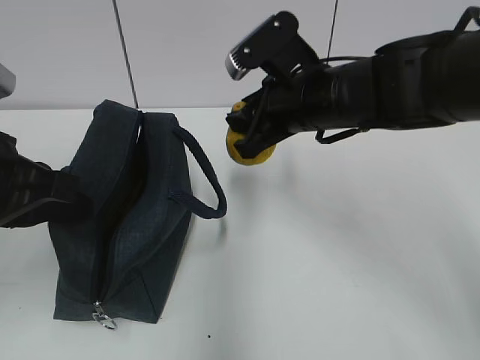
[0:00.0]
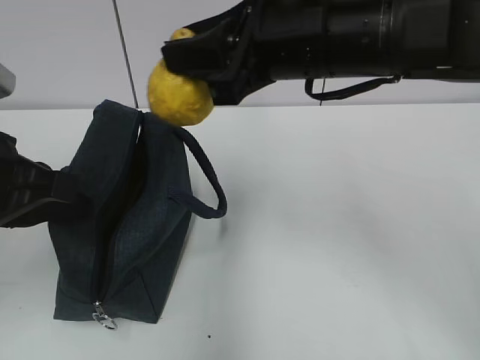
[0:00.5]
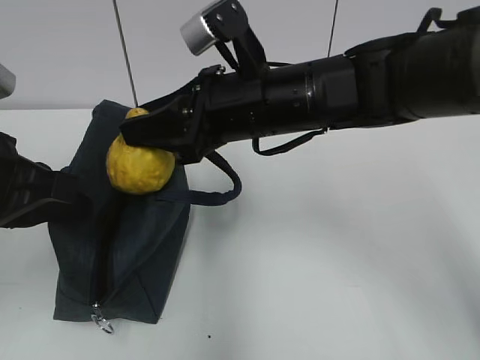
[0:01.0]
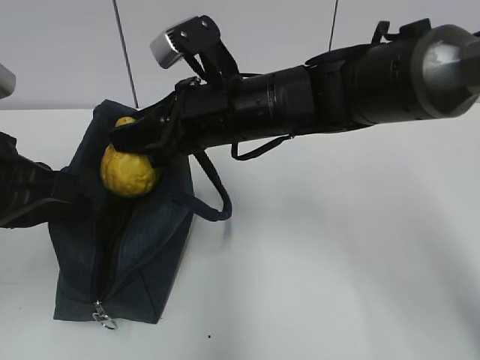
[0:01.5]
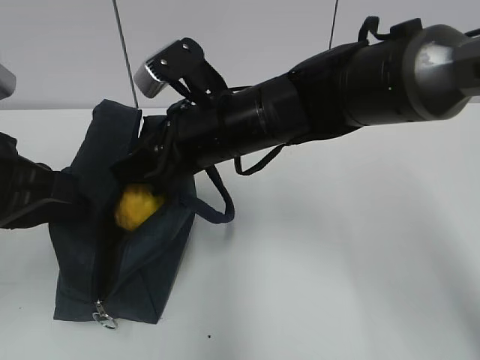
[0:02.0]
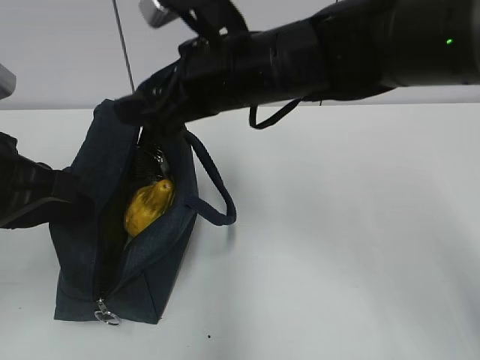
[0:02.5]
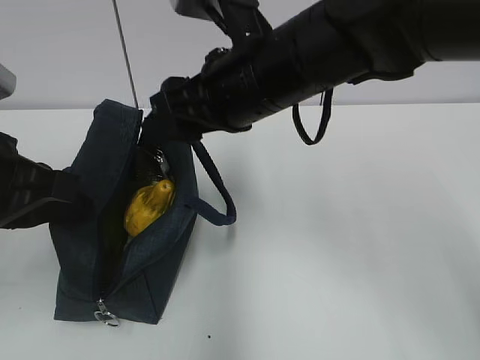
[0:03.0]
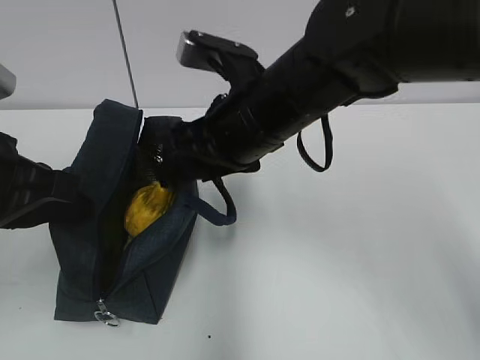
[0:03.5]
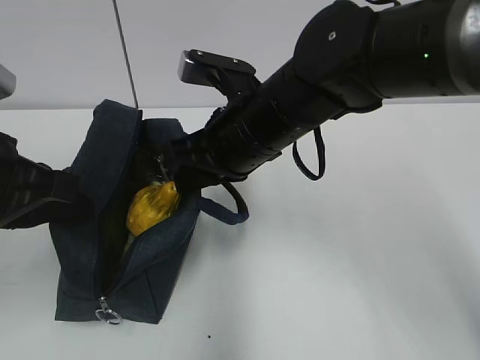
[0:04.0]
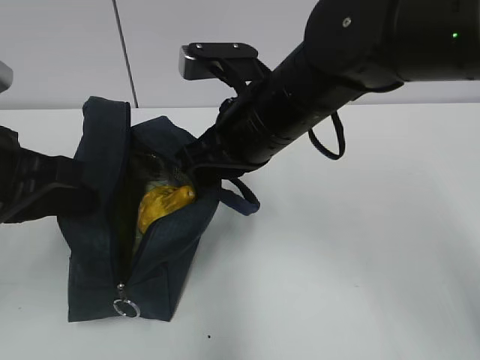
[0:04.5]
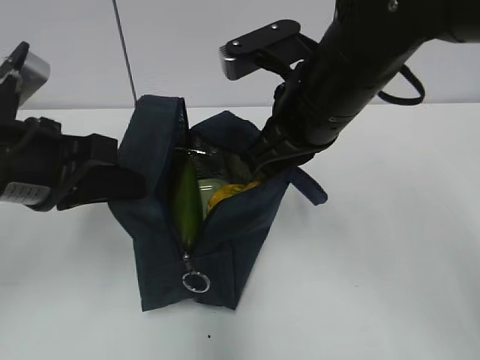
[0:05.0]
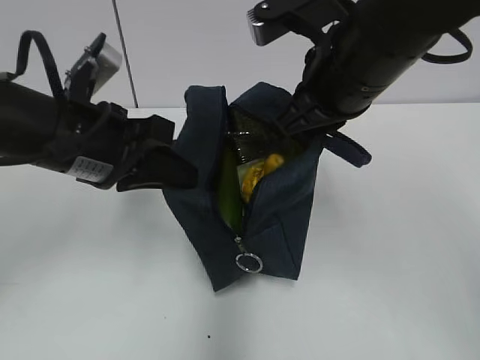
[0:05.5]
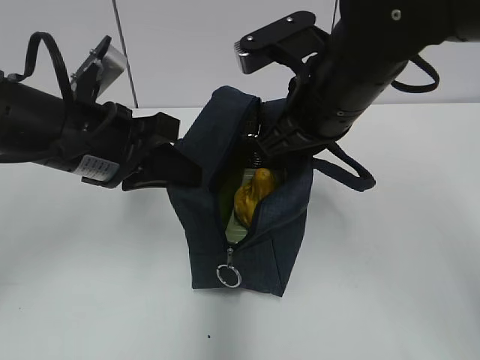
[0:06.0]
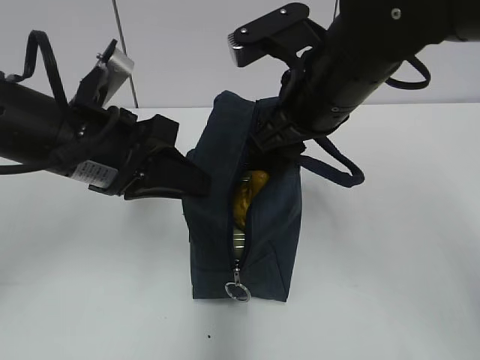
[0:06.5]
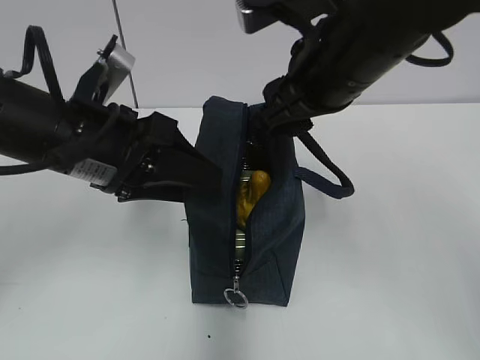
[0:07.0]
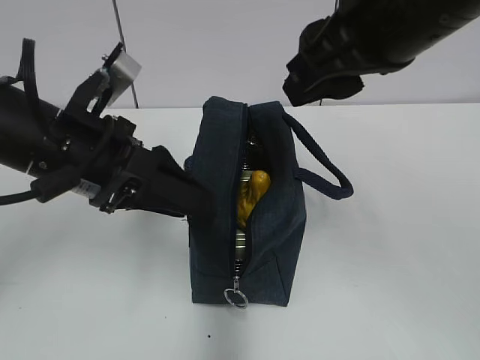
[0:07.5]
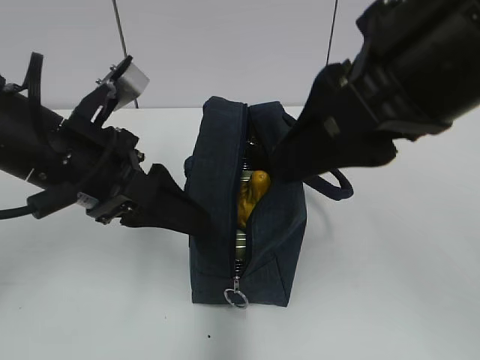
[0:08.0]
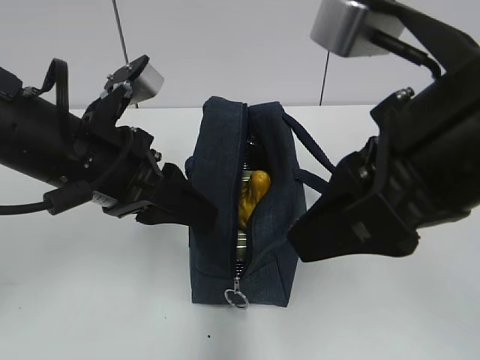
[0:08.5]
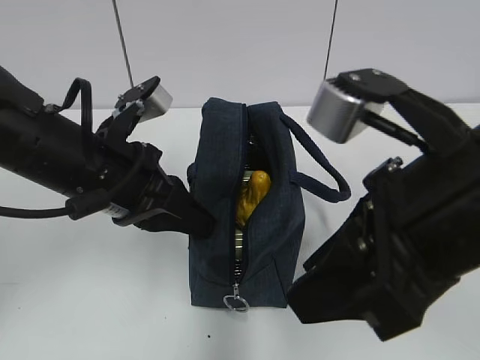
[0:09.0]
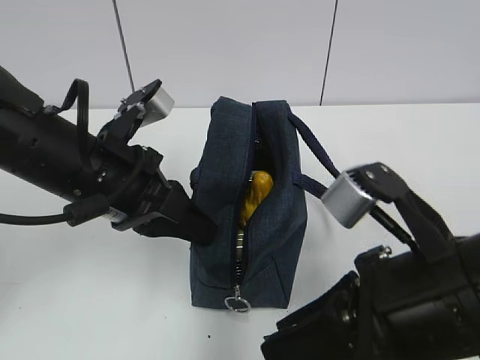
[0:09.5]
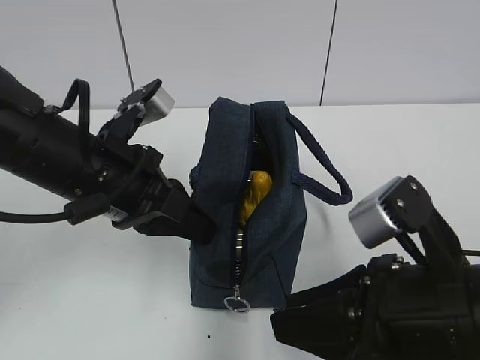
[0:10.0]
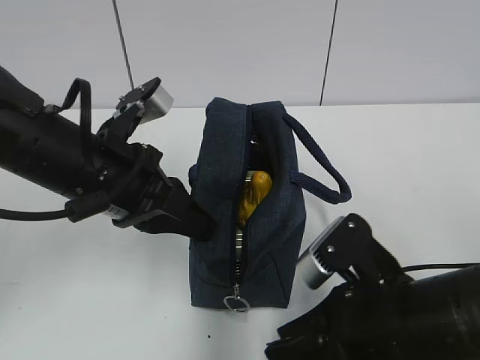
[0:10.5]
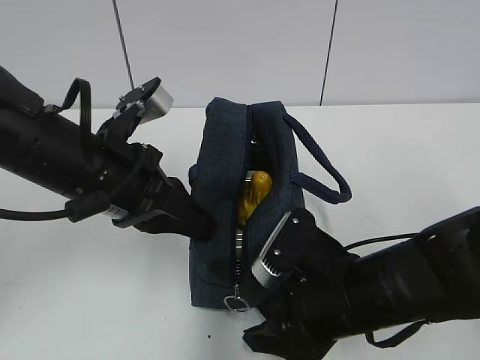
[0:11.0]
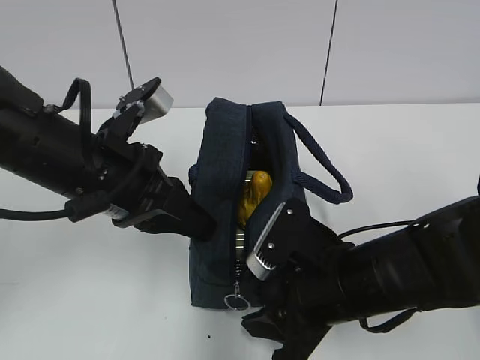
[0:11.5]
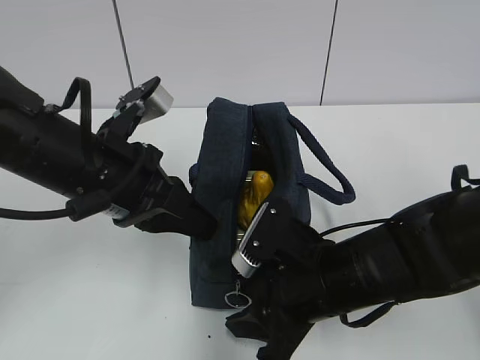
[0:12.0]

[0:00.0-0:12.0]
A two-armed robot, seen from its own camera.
Step, 0:02.5 to 0:03.5: Grab the lunch bag with your right hand.
Step, 0:04.0 to 0:06.5: Move the lunch bag to the right.
0:00.0 to 0:02.0: The right gripper is displaced to the left by about 10 cm, and reaches some 10 cm upward, then returns.
0:02.0 to 0:04.0: The right gripper closes its fingers.
0:04.0 to 0:06.0: The right gripper travels to the right by about 5 cm, while the left gripper shifts roughly 10 cm to the right and forward.
0:06.0 to 0:08.0: The right gripper moves backward and upward, approximately 15 cm, and opens. The left gripper opens up.
0:08.0 to 0:10.0: The left gripper closes its fingers; the right gripper moves downward, some 15 cm.
0:10.0 to 0:12.0: The right gripper moves forward and downward, roughly 10 cm.

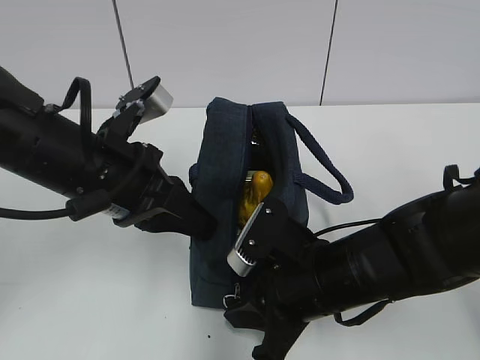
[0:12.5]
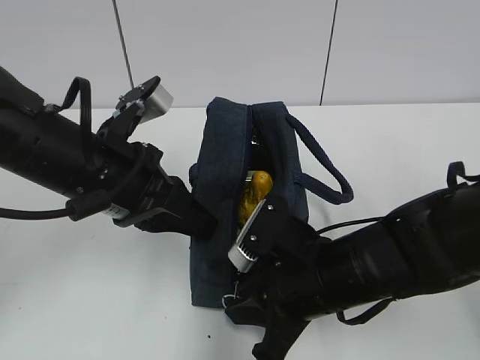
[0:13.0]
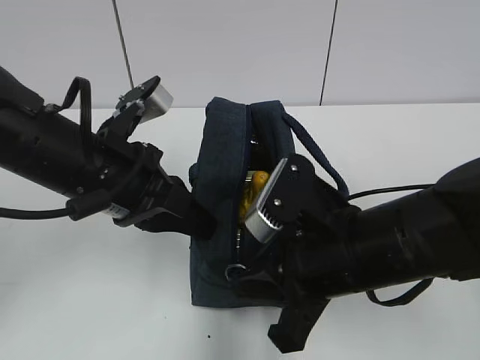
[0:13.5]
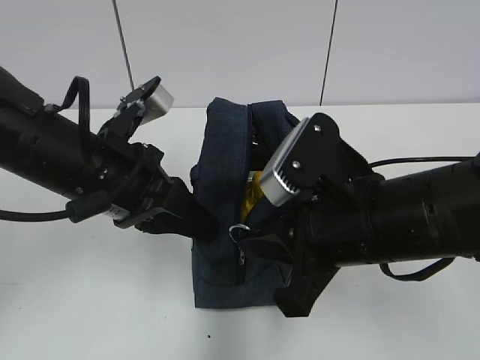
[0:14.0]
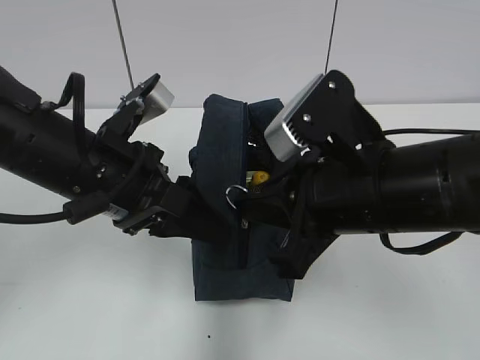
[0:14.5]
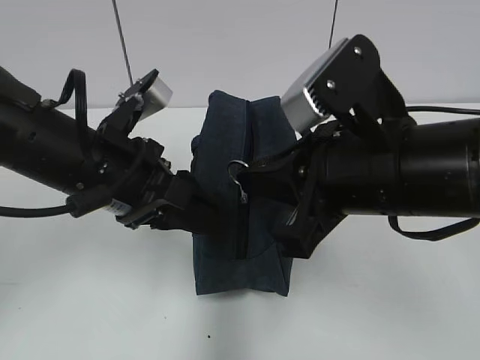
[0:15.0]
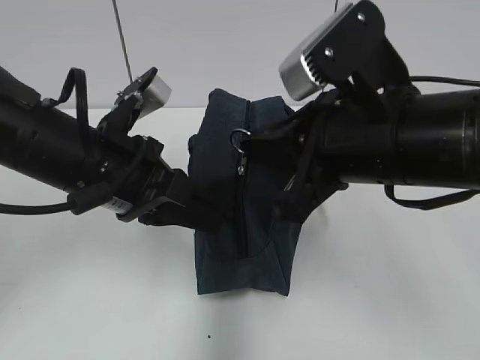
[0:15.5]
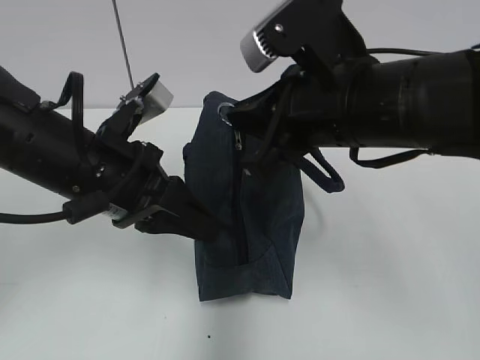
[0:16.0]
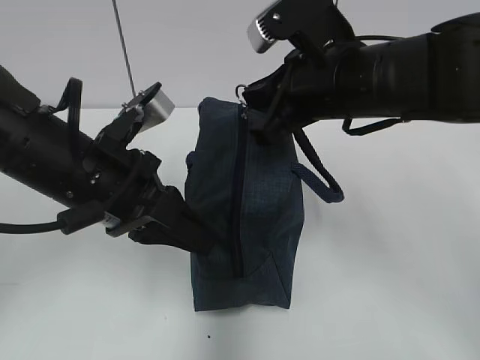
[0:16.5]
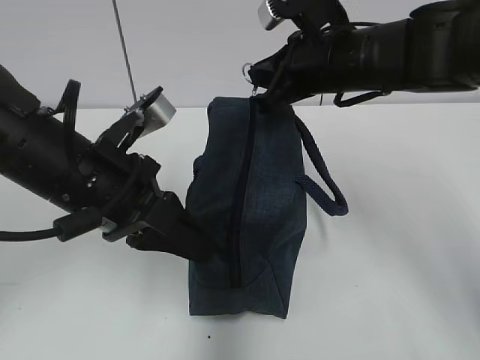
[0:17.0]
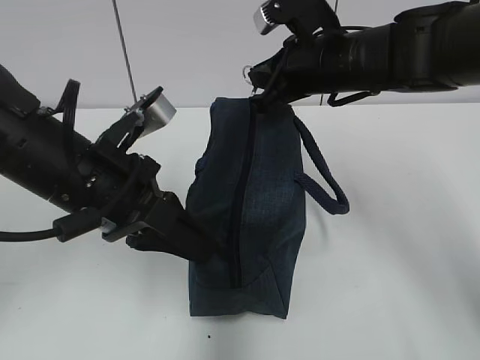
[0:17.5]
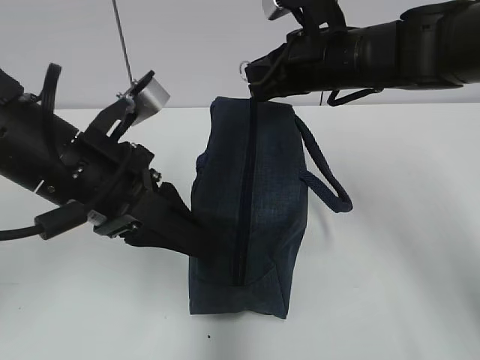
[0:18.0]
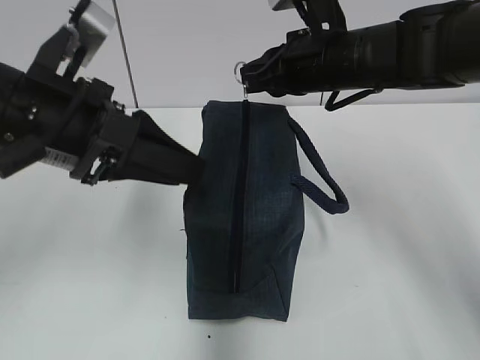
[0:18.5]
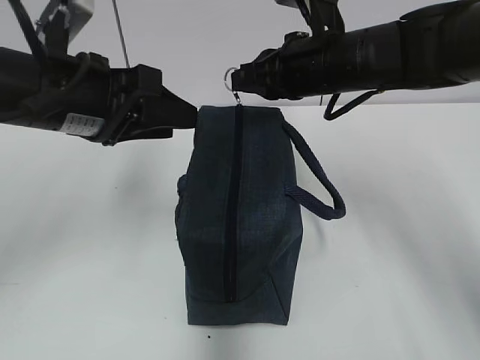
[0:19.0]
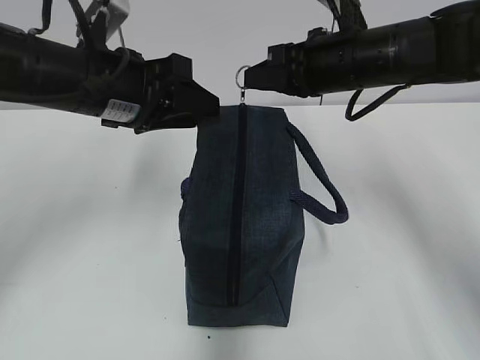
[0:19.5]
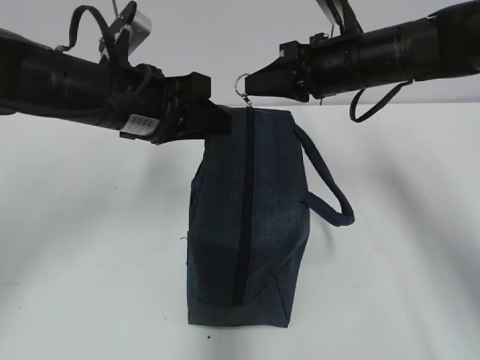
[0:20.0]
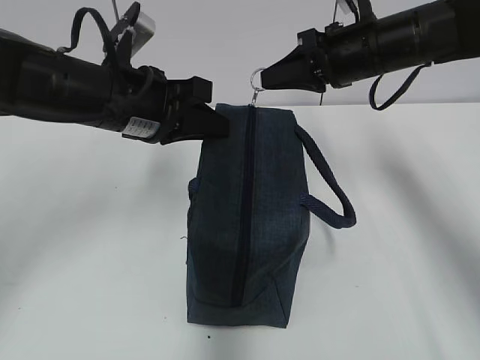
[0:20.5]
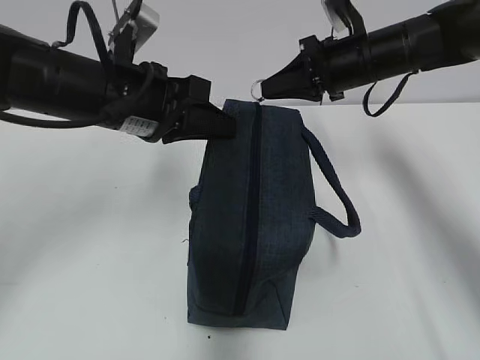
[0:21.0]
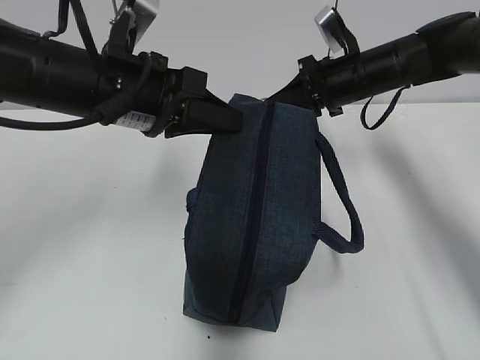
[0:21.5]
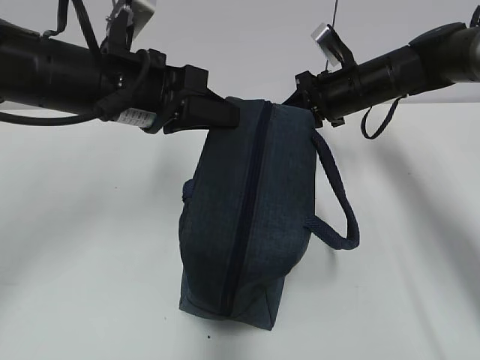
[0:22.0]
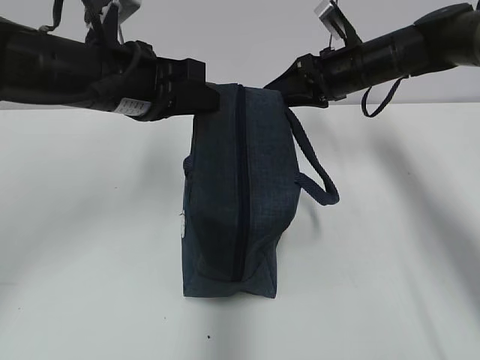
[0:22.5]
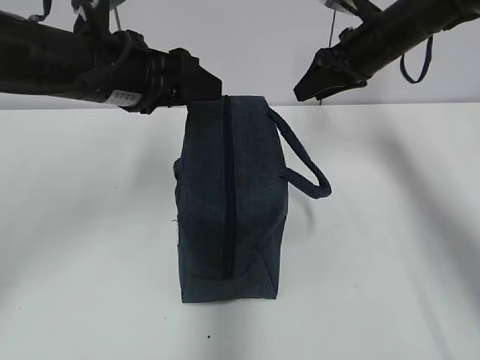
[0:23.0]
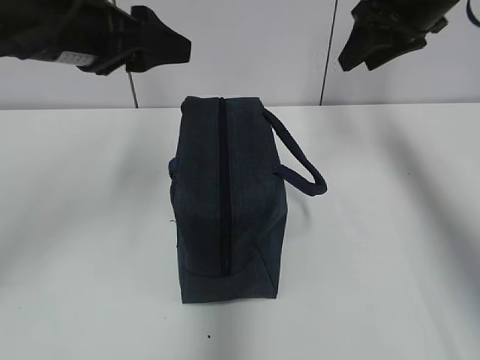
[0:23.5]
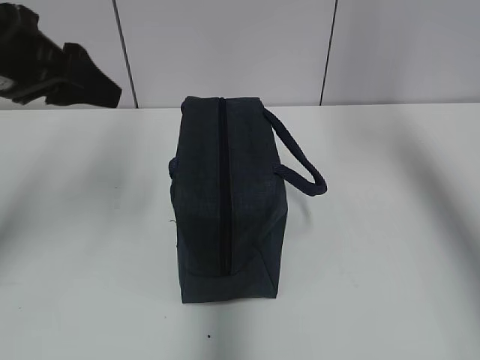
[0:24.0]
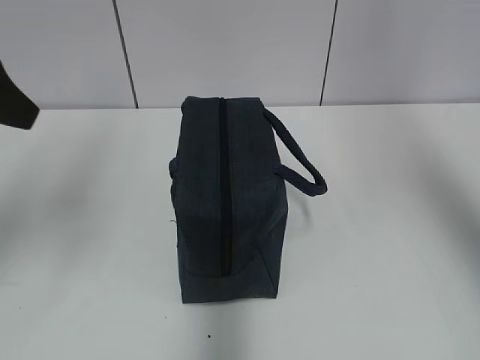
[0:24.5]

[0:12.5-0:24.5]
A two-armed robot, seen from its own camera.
Step, 0:18.5 to 0:22.0: Pull the zipper with your right hand.
0:12.5 to 0:14.5: The left gripper opens up; the right gripper shifts about 10 cm upward.
0:14.5 to 0:16.5: The left gripper closes up, while the right gripper travels forward by roughly 10 cm.
0:16.5 to 0:18.5: The left gripper heads upward, covering some 5 cm, and opens up, while the right gripper heads forward, covering some 5 cm.
0:18.5 to 0:20.5: The left gripper is displaced forward by roughly 10 cm, and closes; the right gripper shifts some 5 cm to the right.
0:20.5 to 0:22.5: The right gripper shifts some 5 cm forward, and opens.
0:22.5 to 0:24.5: The left gripper travels to the left, backward and upward by about 15 cm, and opens. Meanwhile the right gripper moves upward and backward, roughly 40 cm.
